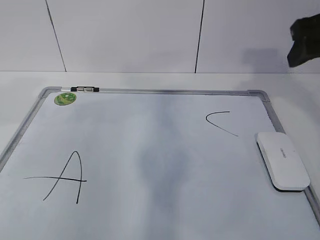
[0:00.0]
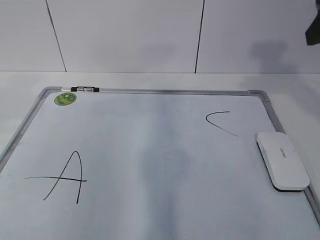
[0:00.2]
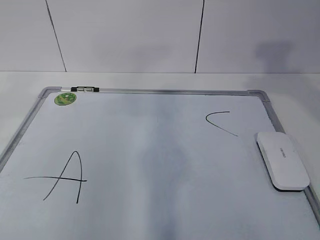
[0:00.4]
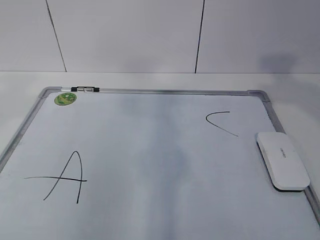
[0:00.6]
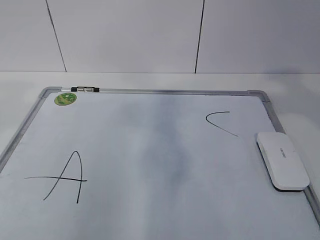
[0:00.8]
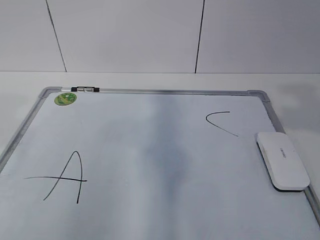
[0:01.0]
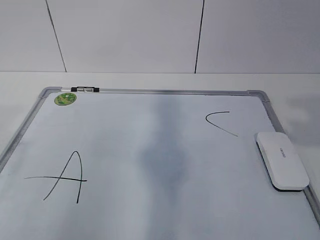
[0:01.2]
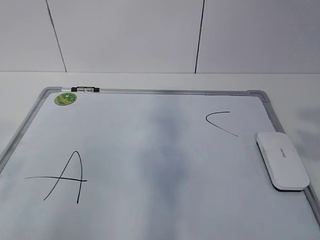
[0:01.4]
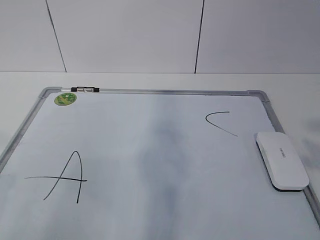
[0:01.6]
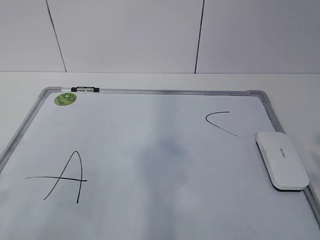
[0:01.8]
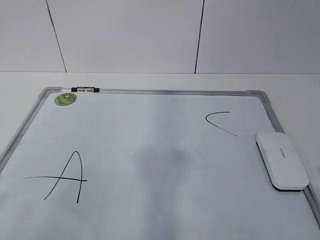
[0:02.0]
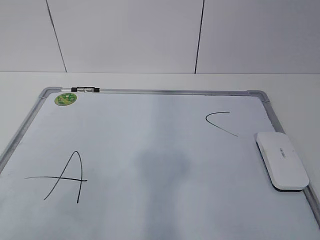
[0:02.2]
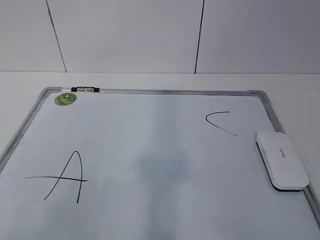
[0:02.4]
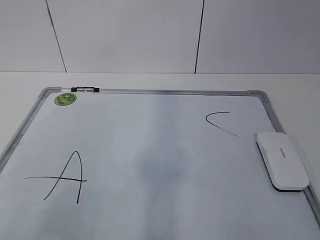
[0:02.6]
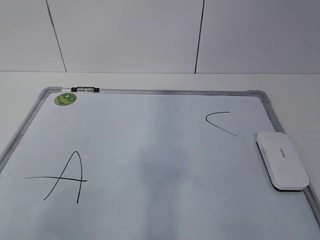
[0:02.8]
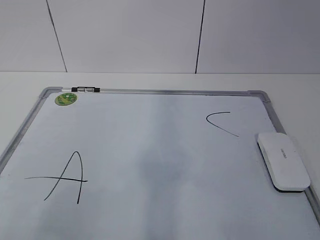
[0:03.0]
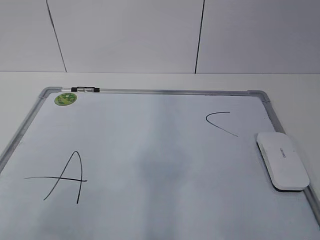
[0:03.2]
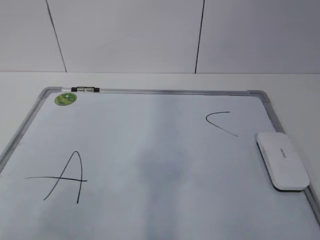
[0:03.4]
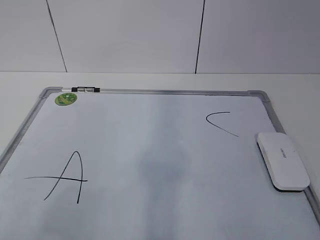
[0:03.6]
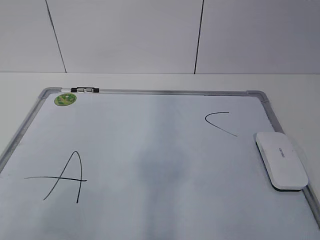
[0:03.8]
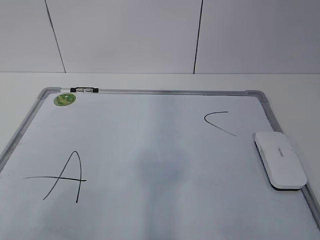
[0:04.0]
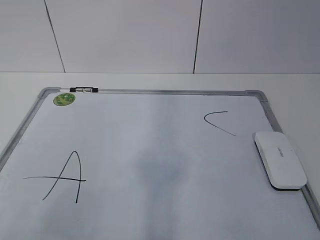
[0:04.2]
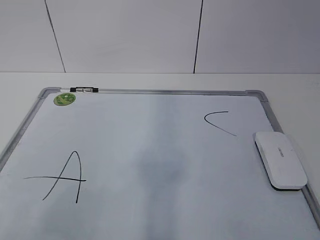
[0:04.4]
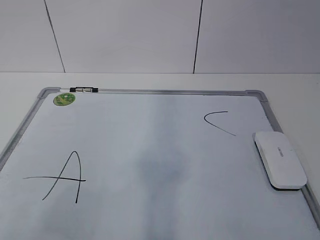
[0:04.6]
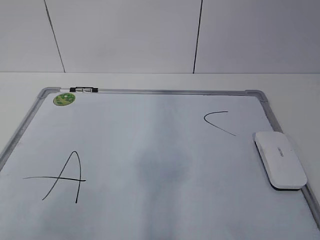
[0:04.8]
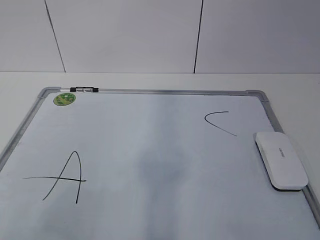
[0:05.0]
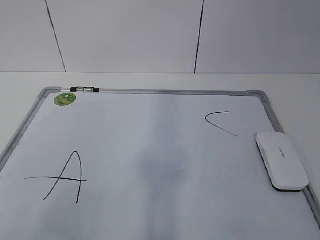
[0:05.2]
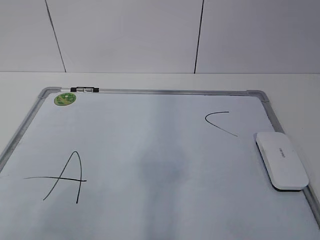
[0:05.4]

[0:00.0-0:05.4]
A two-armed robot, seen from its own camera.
Task of the whole recording: pick up the eraser on the blackboard and erase the letter "B".
0:00.0 to 0:01.4: The right gripper goes about 20 cm backward.
0:02.8 to 0:04.0: Neither gripper changes place.

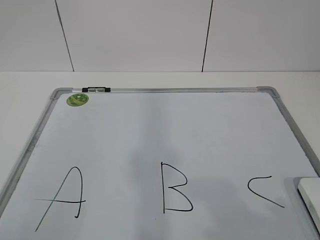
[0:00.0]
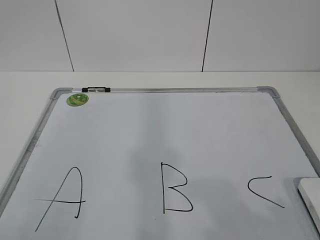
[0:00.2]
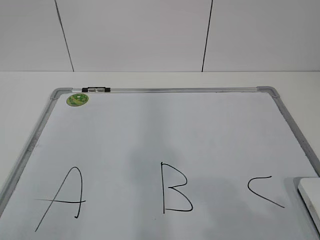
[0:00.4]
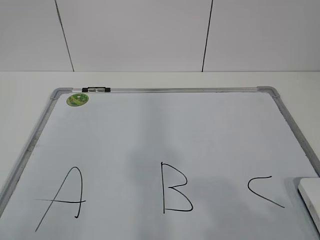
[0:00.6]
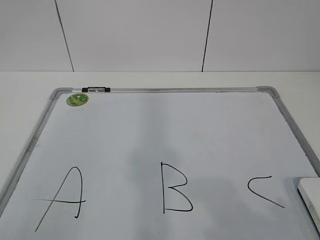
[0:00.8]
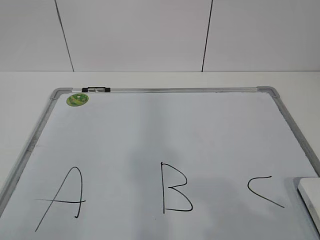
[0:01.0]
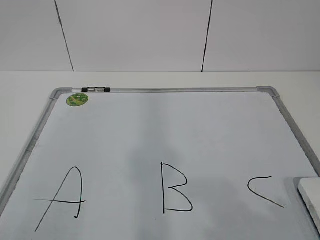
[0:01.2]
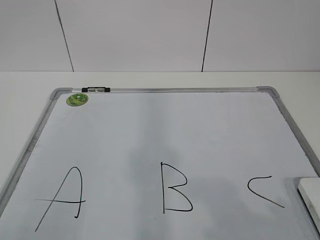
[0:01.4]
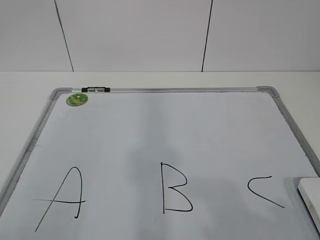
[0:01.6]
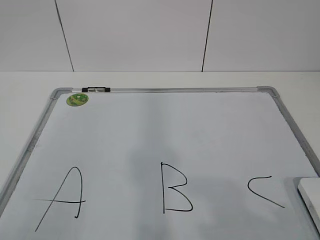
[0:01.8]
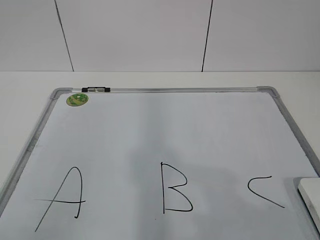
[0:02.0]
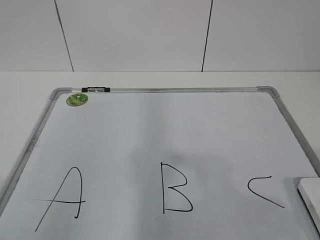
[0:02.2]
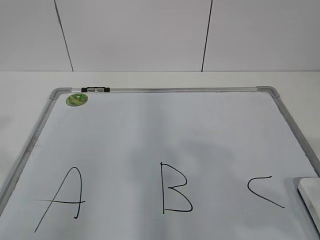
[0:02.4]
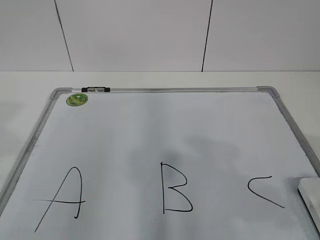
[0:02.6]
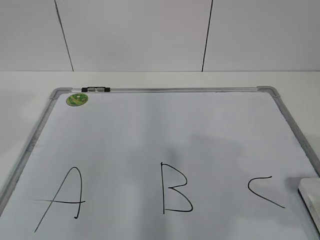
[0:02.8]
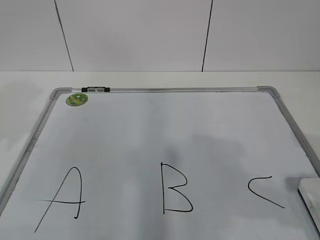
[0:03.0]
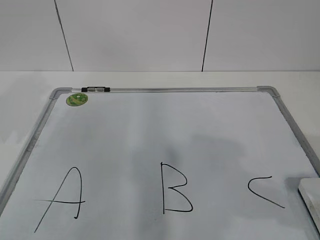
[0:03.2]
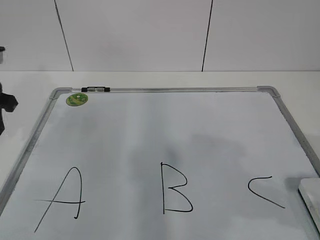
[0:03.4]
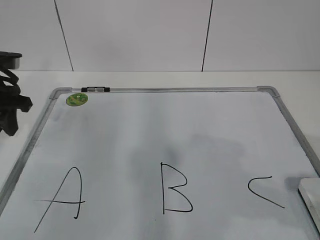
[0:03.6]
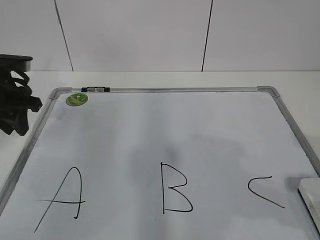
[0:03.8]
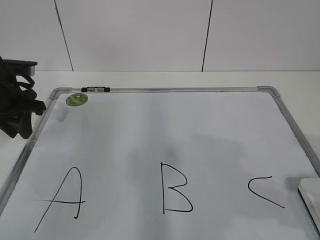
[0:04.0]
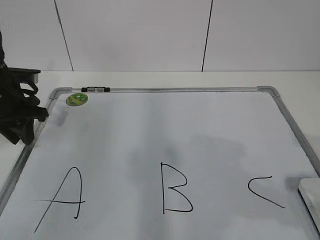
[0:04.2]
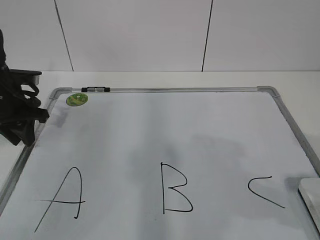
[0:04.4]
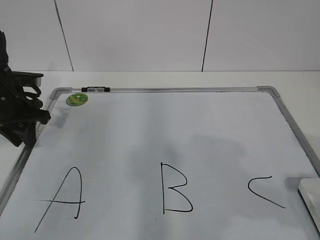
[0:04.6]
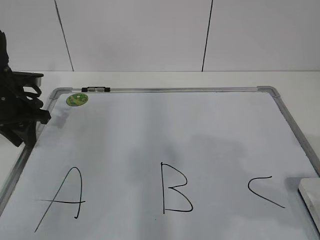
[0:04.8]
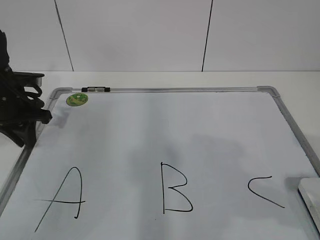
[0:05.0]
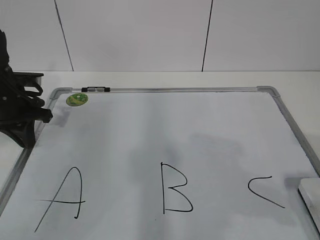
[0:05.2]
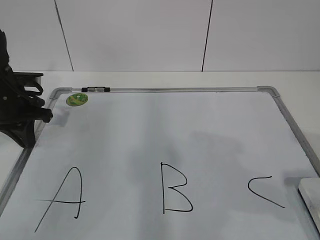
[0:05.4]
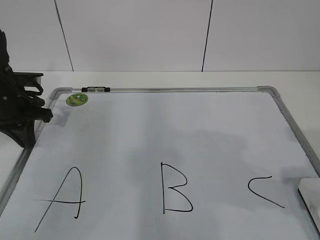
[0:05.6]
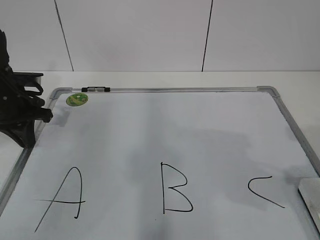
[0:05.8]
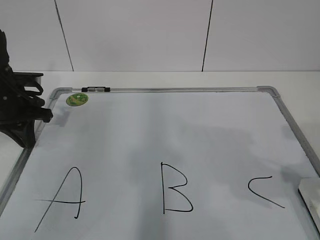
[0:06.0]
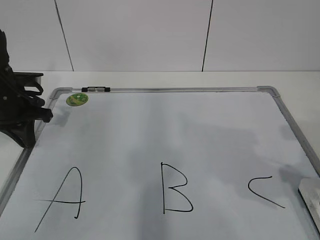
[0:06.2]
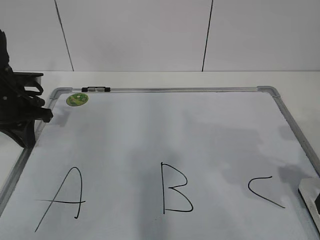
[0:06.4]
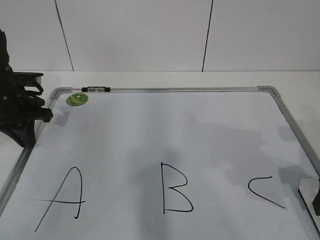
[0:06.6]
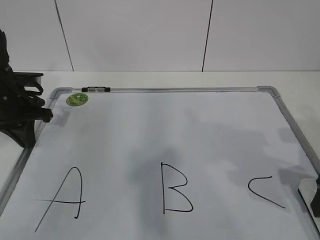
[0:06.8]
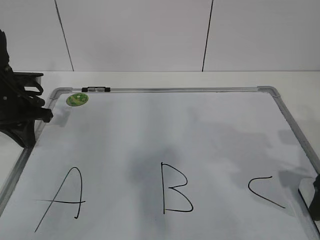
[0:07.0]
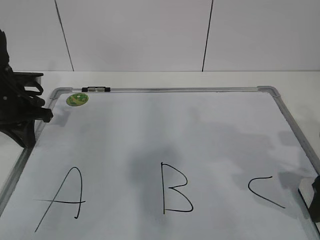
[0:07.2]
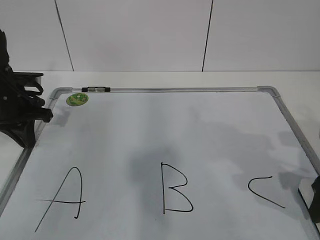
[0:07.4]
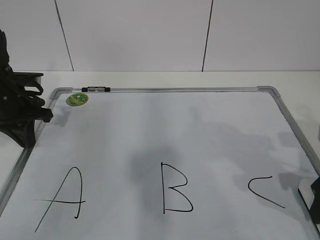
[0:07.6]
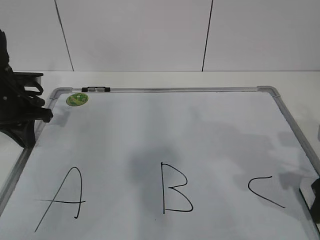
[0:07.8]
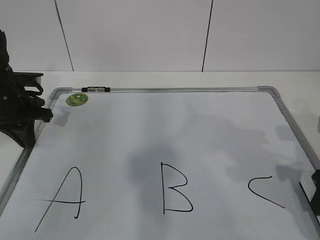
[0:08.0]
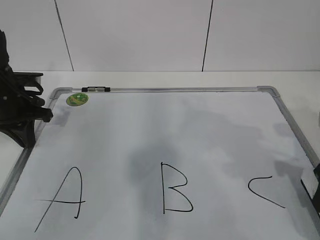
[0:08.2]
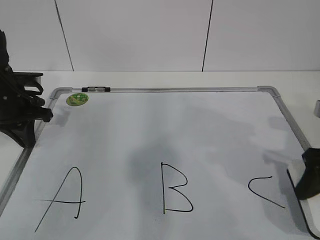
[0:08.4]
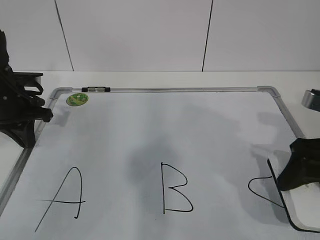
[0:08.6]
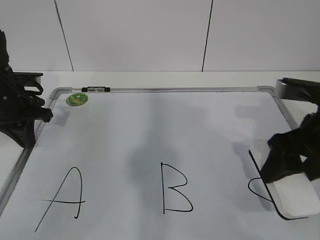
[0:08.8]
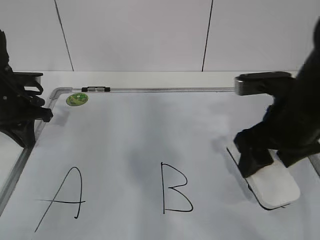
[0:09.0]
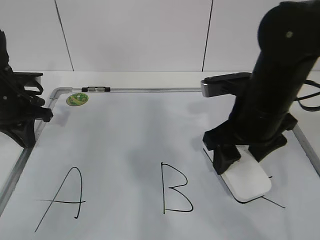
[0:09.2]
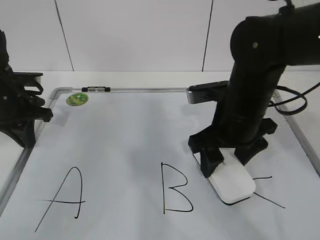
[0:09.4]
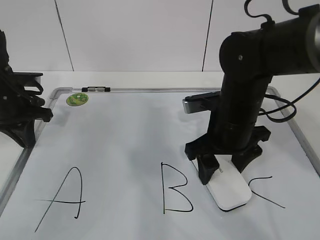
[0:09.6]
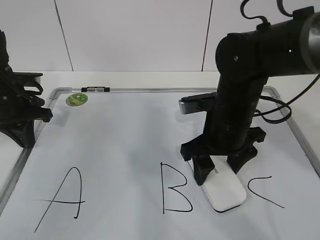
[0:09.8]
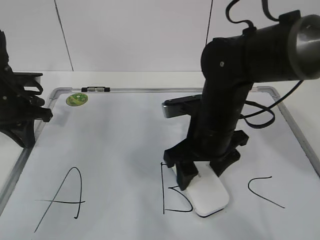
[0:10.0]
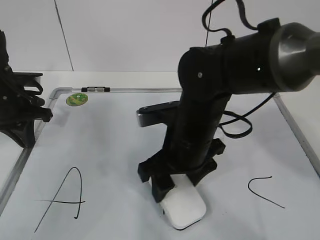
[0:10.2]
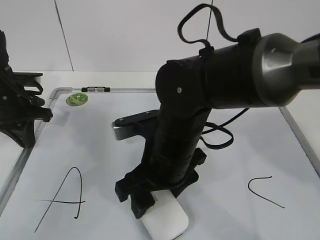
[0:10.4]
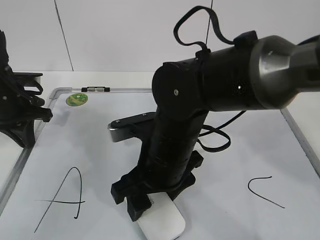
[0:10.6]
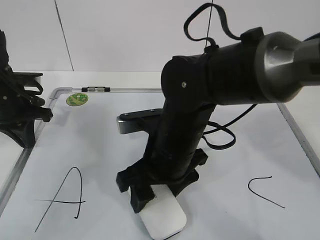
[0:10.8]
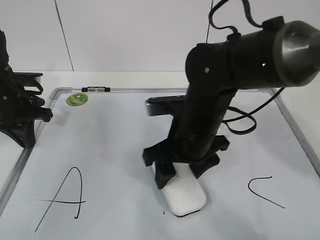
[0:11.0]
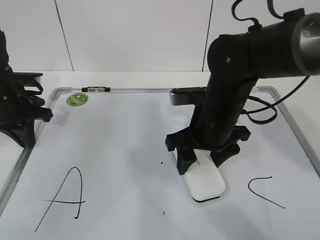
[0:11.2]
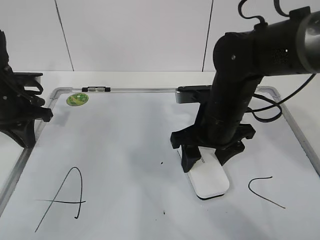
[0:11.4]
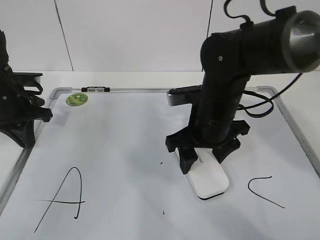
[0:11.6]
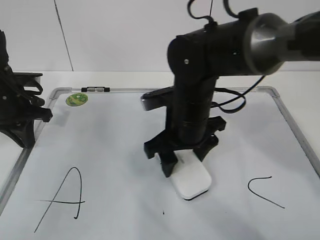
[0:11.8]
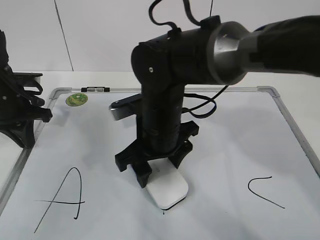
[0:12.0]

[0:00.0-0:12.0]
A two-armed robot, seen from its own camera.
Task of the whole recording: pick up the eraser on the blackboard and erase the letter "B".
Step, 0:00.0 to 0:04.2: Hold the drawing board steady with your left hand.
0:01.6 to 0:03.0: The right gripper heads forward, covering about 10 cm. The left gripper travels forward by about 25 cm.
0:03.0 to 0:04.4: The left gripper travels forward and downward by approximately 20 cm.
0:04.4 to 0:06.0: The left gripper closes its fingers.
0:06.0 to 0:07.6: The right gripper goes approximately 5 cm downward.
0:07.6 to 0:09.0: The right gripper goes approximately 10 cm to the left and upward, and closes its fingers.
0:09.0 to 0:10.4: The right gripper goes approximately 15 cm to the left.
0:10.4 to 0:12.0: The right gripper goes to the right and returns, about 10 cm each way.

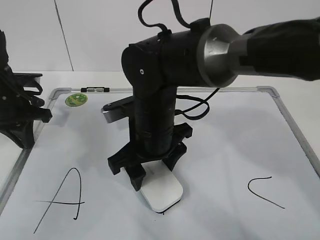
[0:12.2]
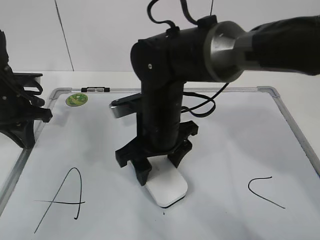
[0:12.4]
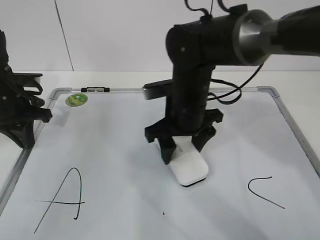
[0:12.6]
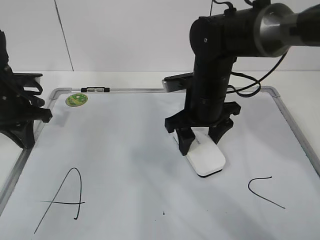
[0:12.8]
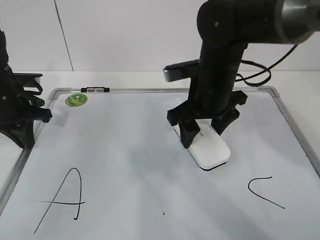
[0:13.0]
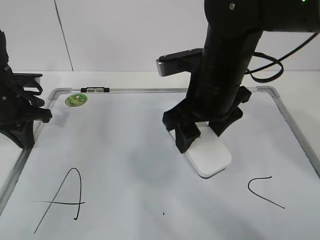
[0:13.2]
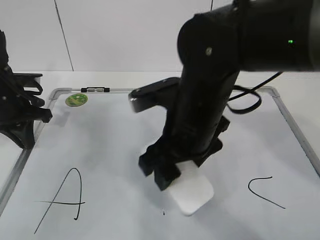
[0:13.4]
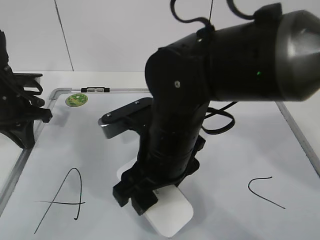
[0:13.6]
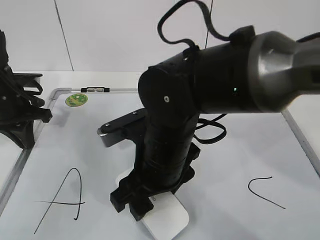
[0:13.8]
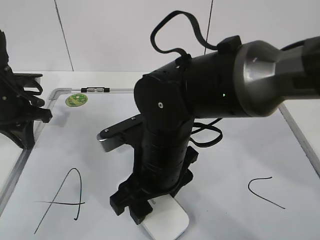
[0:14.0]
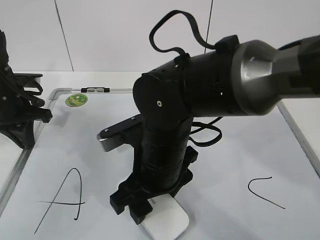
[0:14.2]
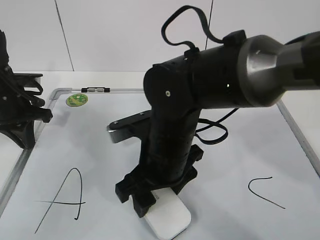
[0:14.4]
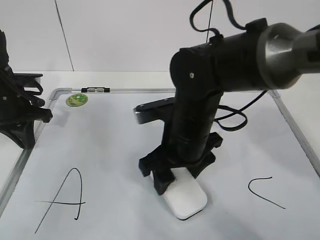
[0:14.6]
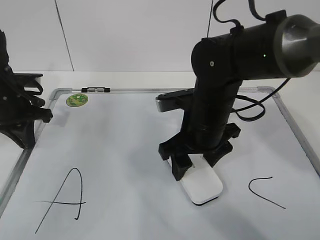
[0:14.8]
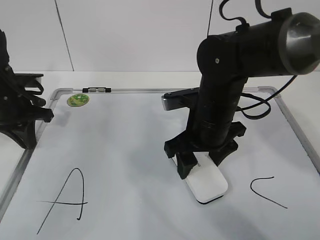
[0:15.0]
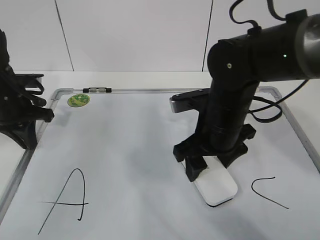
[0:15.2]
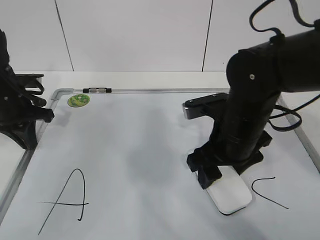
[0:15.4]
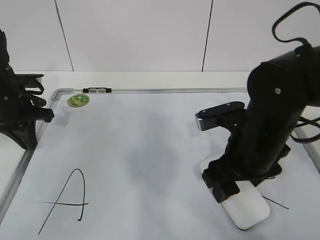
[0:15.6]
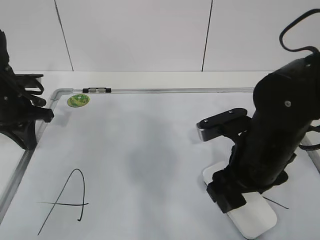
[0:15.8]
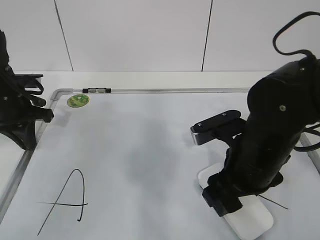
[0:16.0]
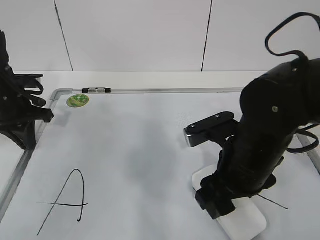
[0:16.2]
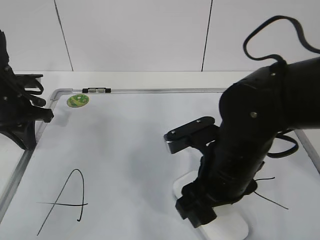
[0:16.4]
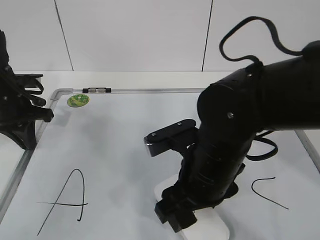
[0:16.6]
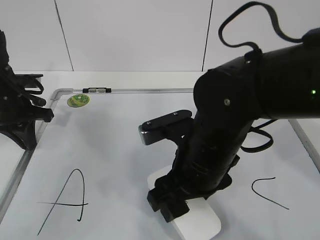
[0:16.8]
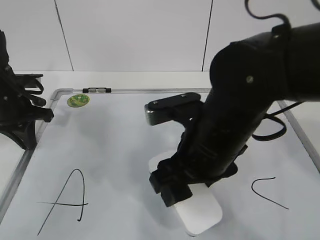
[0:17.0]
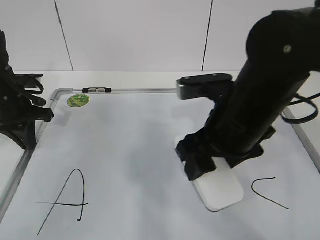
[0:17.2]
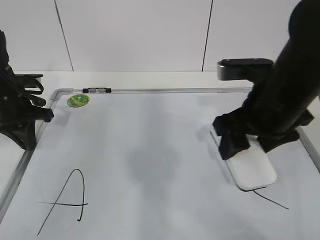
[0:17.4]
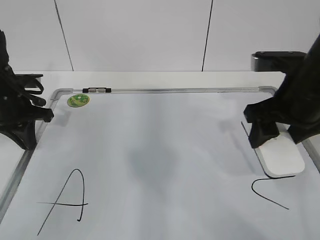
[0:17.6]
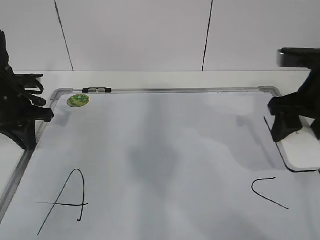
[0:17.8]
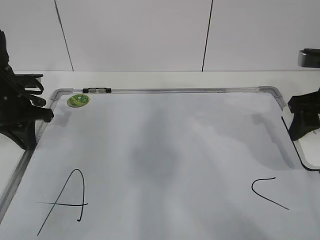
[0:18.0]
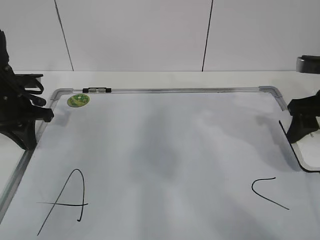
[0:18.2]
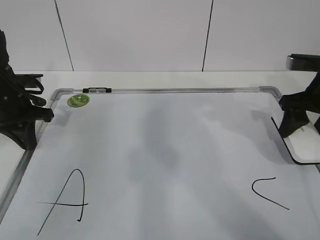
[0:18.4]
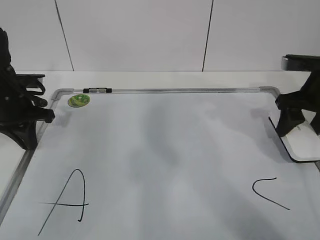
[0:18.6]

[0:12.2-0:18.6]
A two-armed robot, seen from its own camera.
Task of the whole recording: pick up the eraser on the blackboard and erase the letter "B".
Step, 0:14.0 to 0:17.6: Put down the eraser with your right hand.
0:12.2 to 0:13.8: The right gripper heads backward, covering about 5 cm.
0:13.8 to 0:15.4: The right gripper heads to the right, covering approximately 10 cm.
0:15.4 to 0:17.0: The right gripper heads backward and to the left, covering some 10 cm.
0:17.0 to 0:18.6: The right gripper shifts approximately 25 cm to the right and forward.
